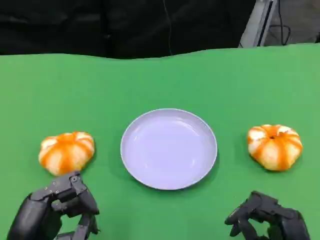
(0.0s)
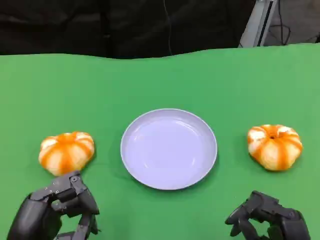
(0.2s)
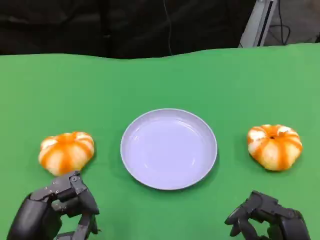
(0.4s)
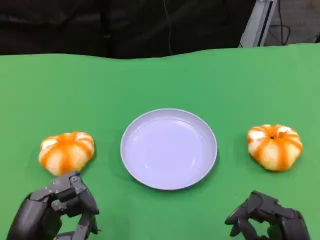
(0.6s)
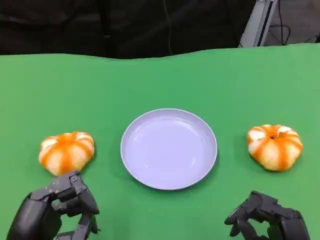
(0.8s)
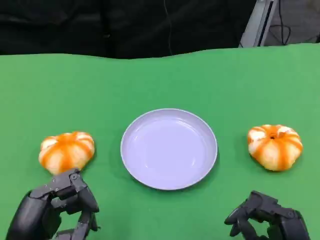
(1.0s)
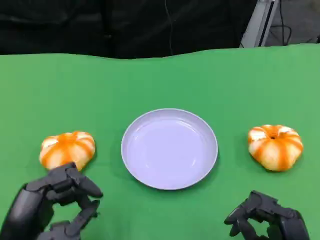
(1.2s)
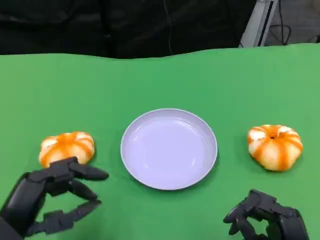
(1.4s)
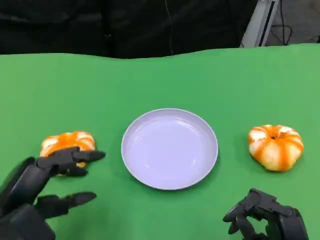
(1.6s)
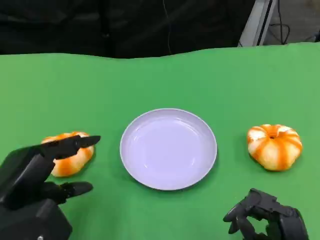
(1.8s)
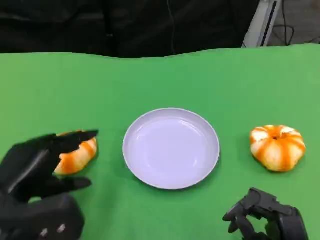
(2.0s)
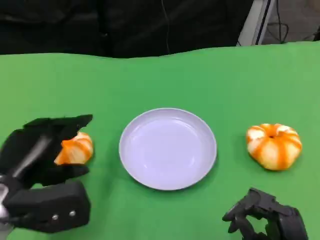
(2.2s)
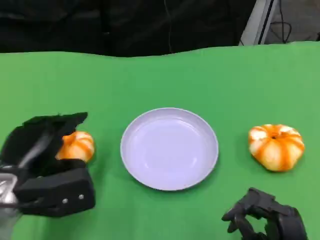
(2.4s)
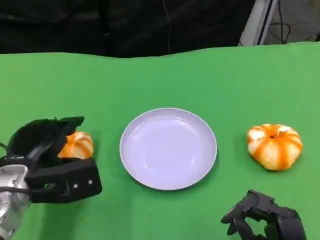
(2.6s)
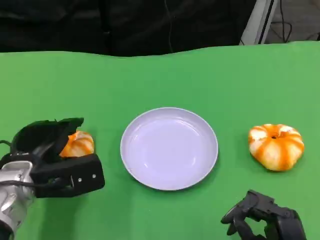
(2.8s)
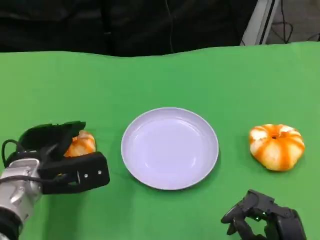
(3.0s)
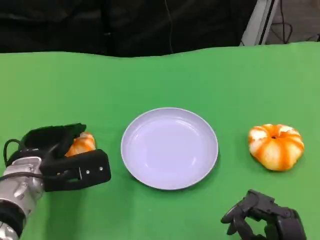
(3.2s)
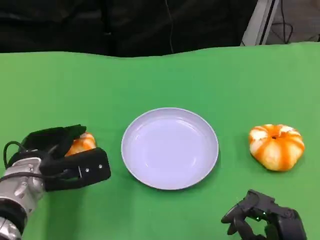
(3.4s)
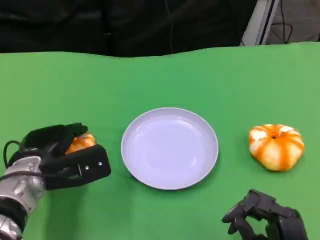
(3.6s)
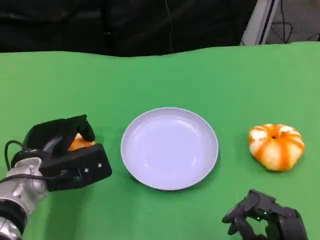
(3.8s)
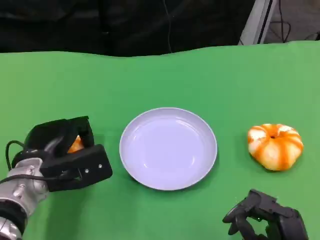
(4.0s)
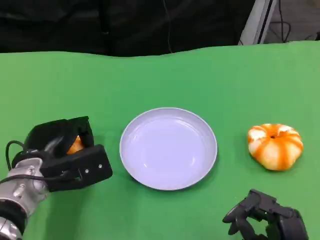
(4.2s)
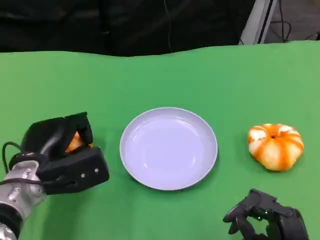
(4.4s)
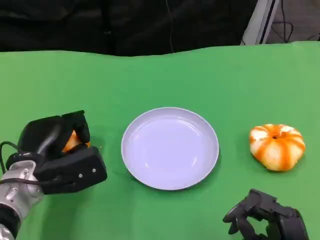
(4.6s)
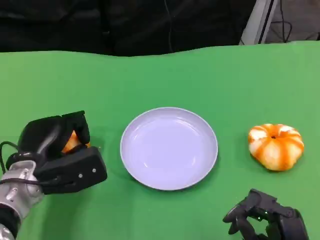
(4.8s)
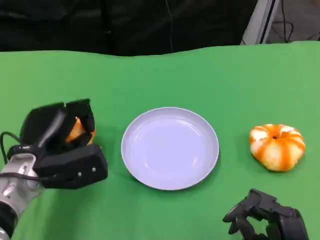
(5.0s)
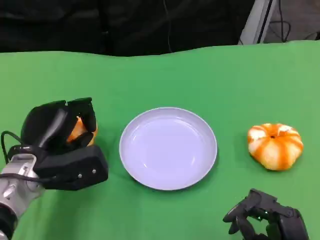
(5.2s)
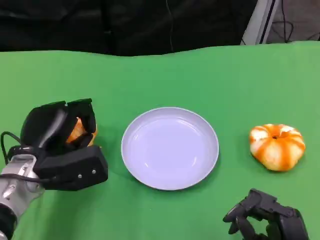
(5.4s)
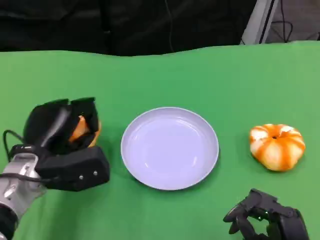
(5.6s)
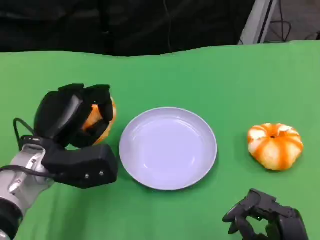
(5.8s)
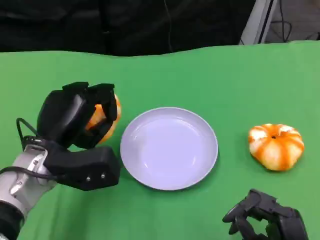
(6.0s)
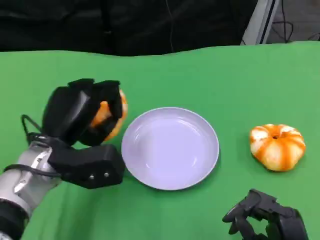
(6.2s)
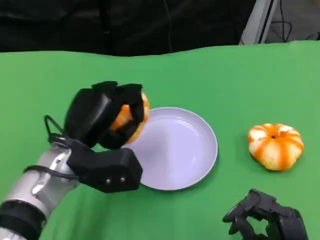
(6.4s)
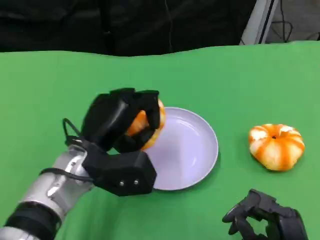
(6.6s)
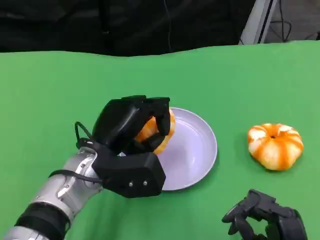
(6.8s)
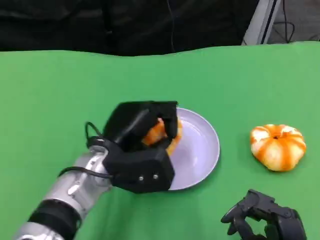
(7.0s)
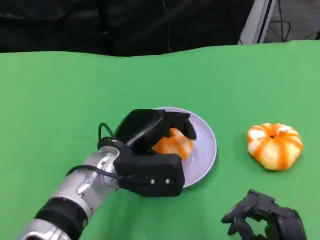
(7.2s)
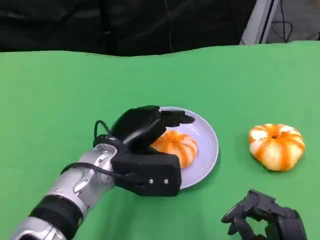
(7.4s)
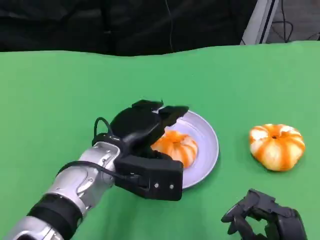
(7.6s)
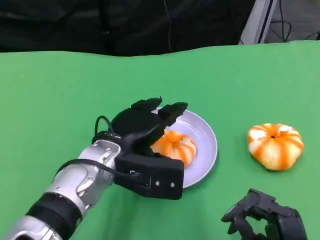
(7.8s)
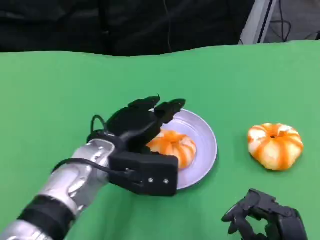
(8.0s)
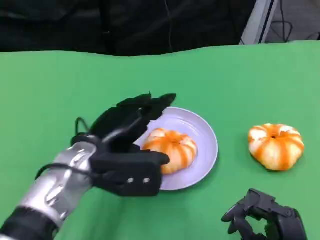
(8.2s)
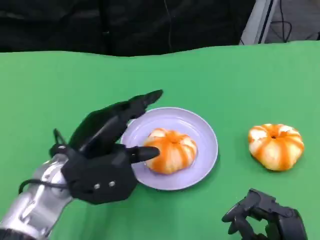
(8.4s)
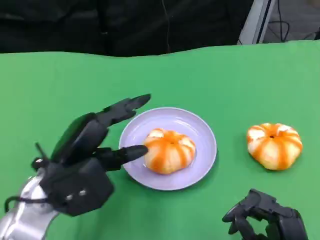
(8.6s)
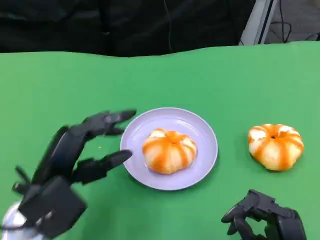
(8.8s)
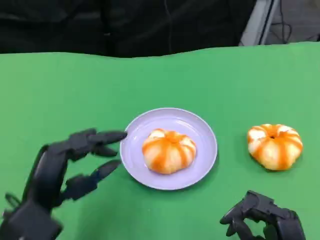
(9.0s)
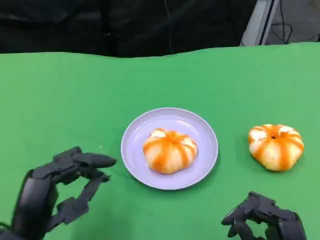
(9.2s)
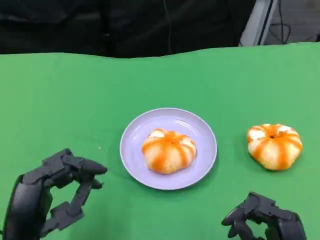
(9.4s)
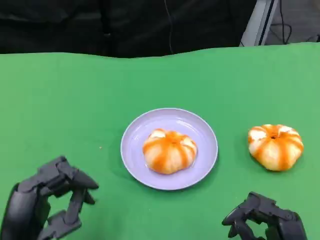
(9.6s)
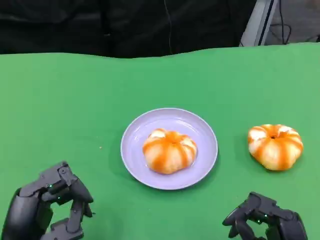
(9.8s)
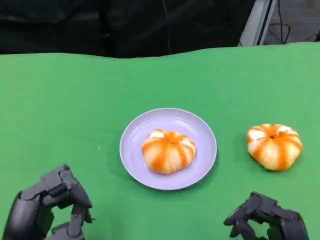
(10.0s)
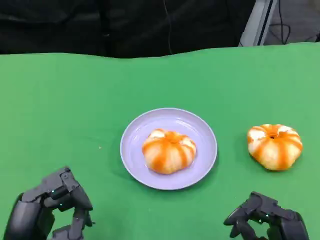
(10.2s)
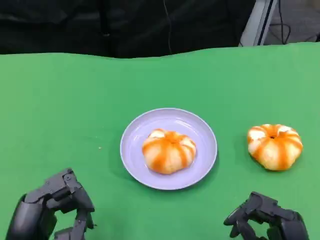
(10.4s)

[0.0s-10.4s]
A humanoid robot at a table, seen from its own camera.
Task of the whole recording: Grasp the bread from the table and place it into the plate.
0.0s to 1.4s: The hands move only a little.
1.4s to 3.0s: The left hand is displaced forward by approximately 15 cm.
3.0s to 4.4s: The hands stay close to where they were, moving slightly.
6.0s to 7.4s: The left hand travels to the right by approximately 10 cm.
7.4s to 9.0s: The left hand heads backward and to the left, covering about 15 cm.
9.0s to 10.4s: The left hand shifts by about 5 cm.

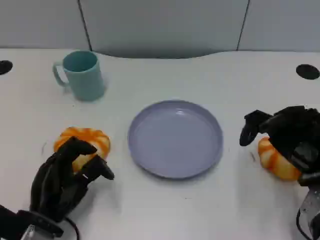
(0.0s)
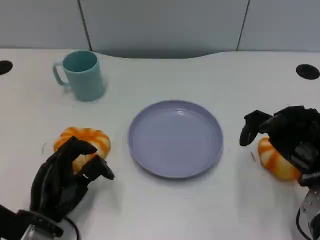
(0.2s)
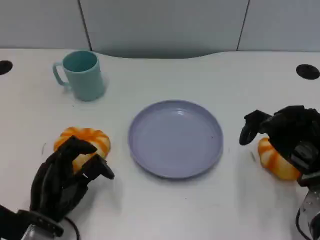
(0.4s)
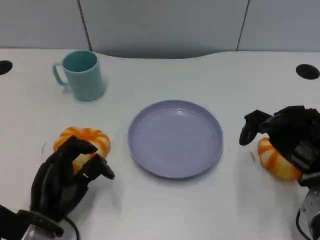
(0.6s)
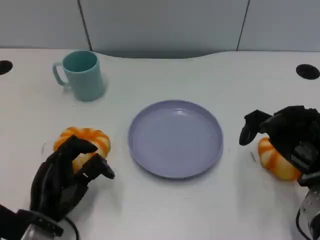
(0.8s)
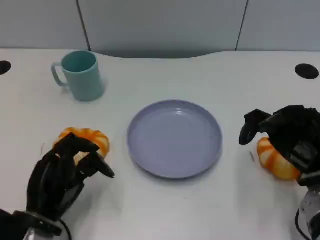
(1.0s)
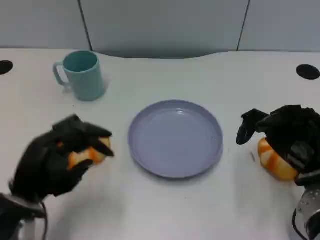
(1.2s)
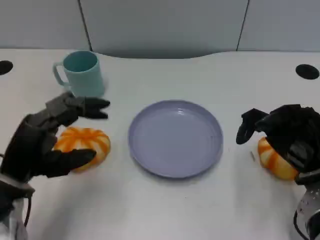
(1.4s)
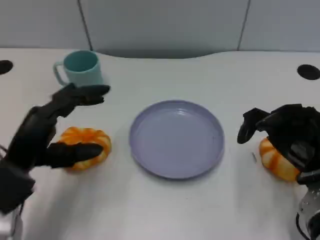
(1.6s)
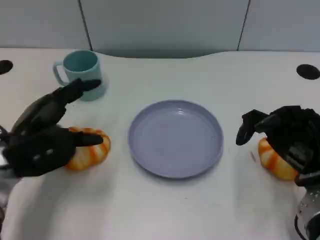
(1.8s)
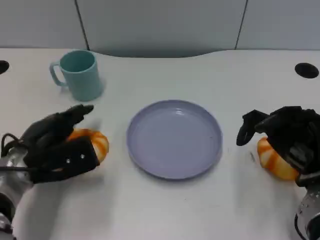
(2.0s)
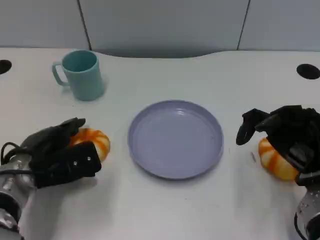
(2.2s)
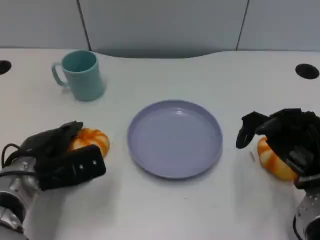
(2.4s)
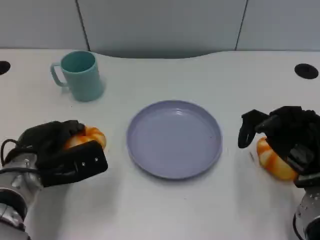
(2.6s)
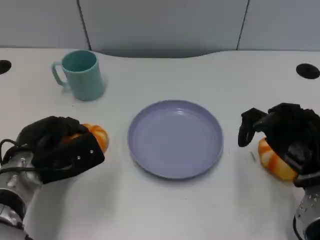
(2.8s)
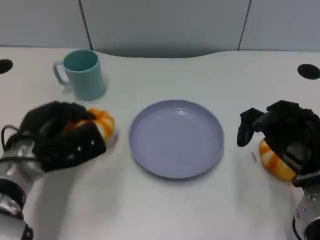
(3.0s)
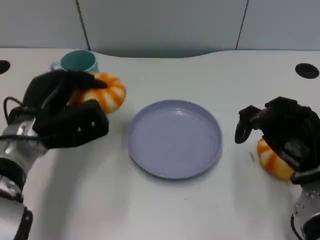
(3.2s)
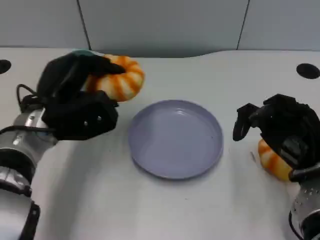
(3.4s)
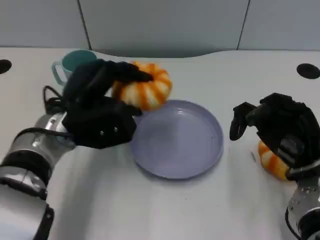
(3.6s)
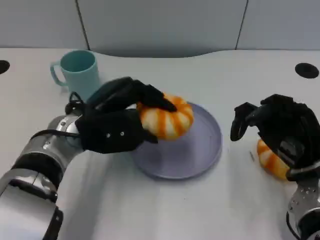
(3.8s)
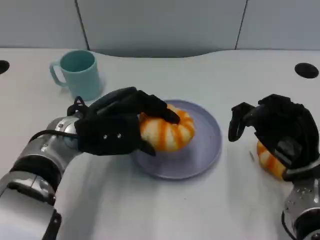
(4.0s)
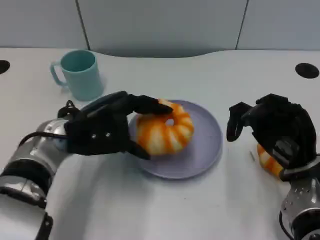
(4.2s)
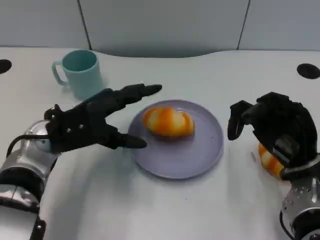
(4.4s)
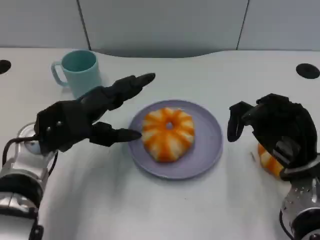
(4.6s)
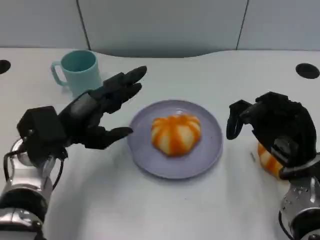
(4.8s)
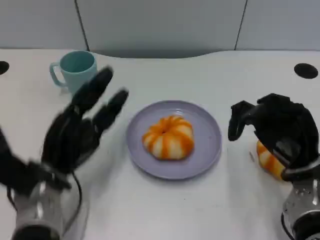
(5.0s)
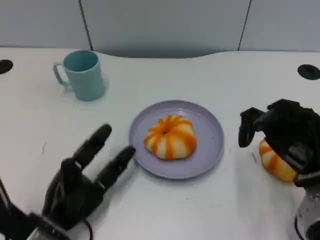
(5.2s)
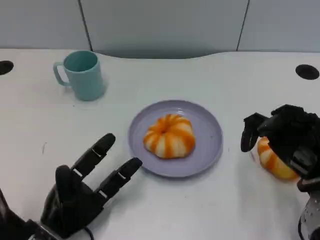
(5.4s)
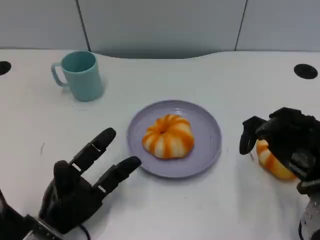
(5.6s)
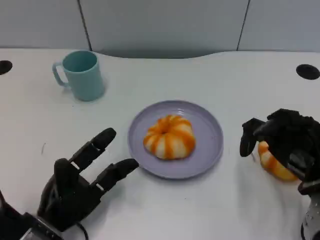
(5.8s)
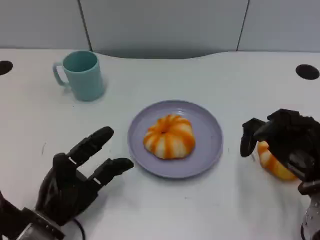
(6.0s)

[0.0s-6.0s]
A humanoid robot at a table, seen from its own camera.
Task of the whole recording: Grasp the bread from the table and place it into the plate.
0.0s to 1.6s: The left hand moves upward, roughly 10 cm.
1.6s to 3.0s: The left hand shifts some 5 cm forward.
4.4s to 6.0s: The left hand travels downward and backward by about 15 cm.

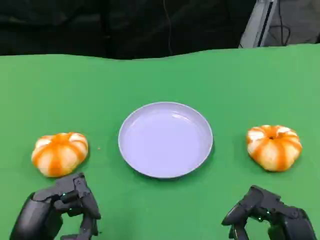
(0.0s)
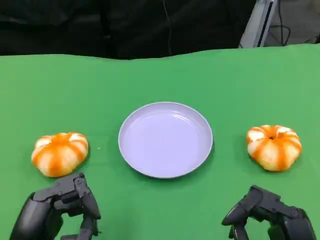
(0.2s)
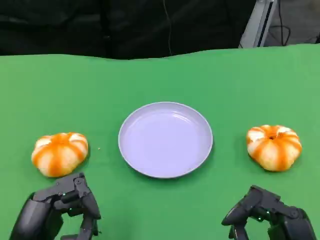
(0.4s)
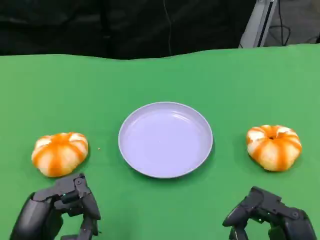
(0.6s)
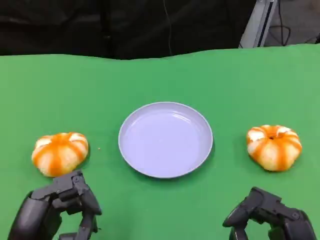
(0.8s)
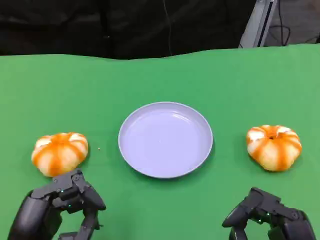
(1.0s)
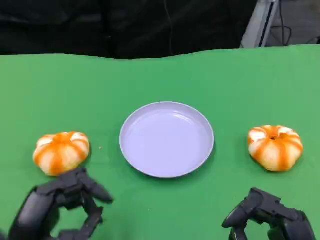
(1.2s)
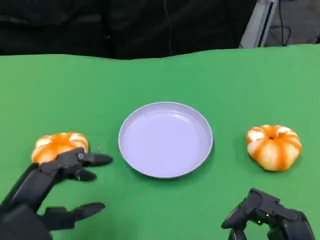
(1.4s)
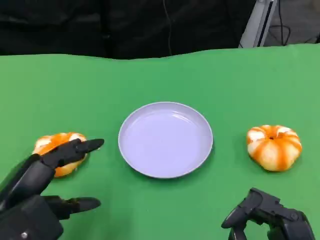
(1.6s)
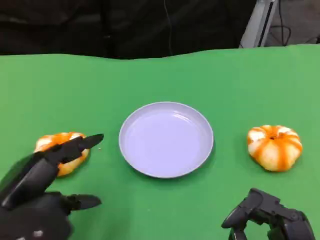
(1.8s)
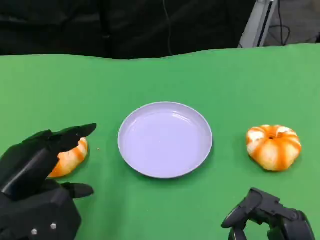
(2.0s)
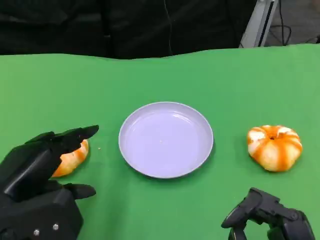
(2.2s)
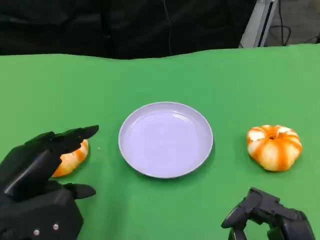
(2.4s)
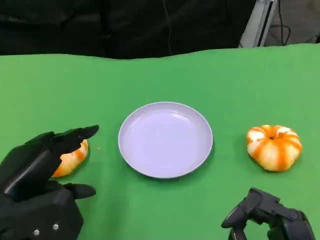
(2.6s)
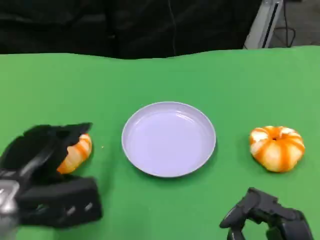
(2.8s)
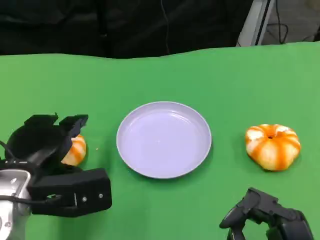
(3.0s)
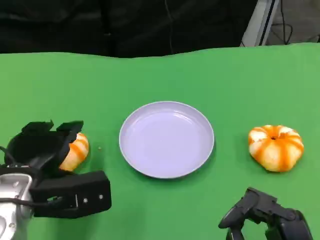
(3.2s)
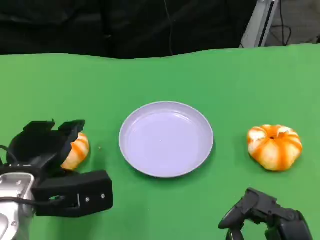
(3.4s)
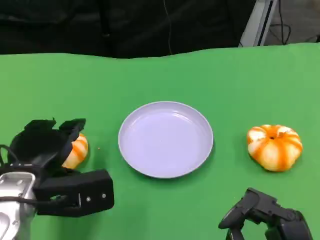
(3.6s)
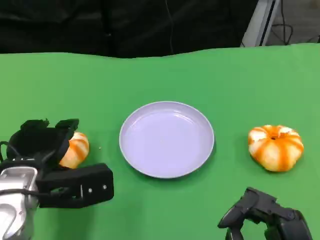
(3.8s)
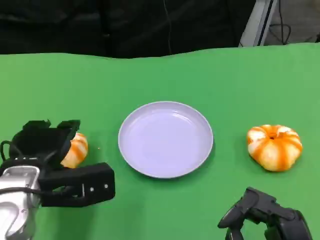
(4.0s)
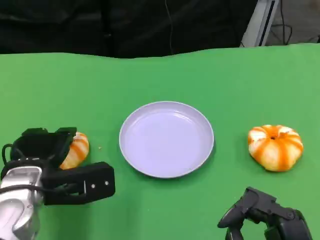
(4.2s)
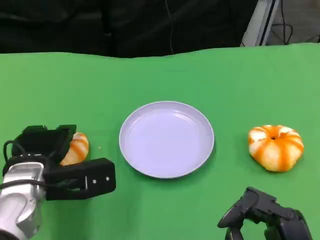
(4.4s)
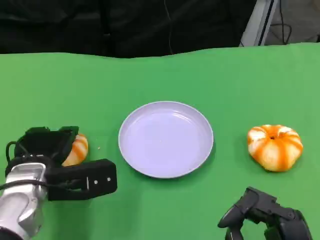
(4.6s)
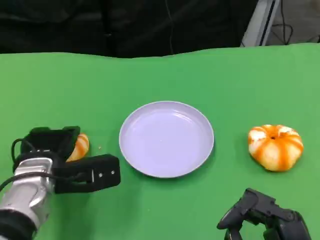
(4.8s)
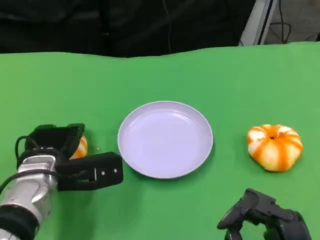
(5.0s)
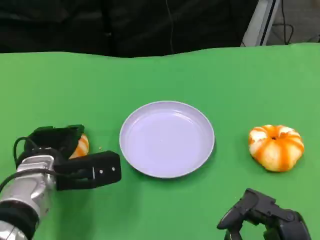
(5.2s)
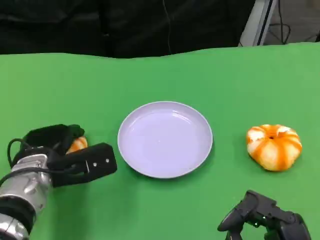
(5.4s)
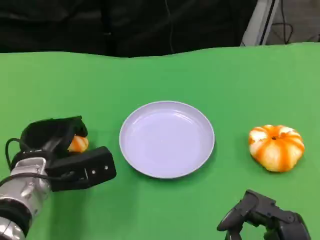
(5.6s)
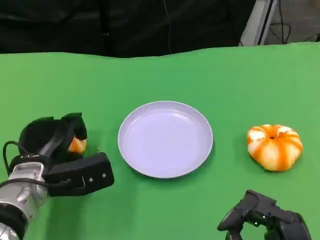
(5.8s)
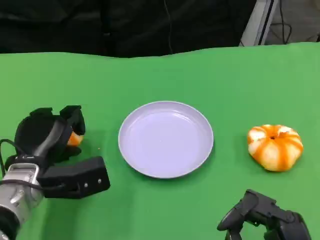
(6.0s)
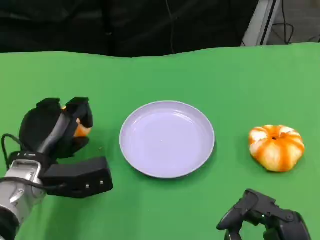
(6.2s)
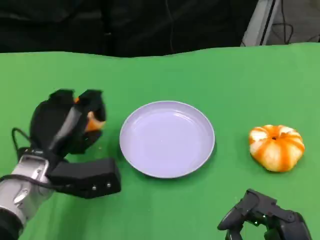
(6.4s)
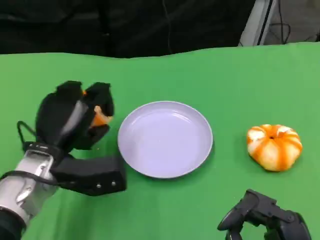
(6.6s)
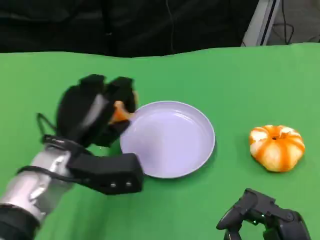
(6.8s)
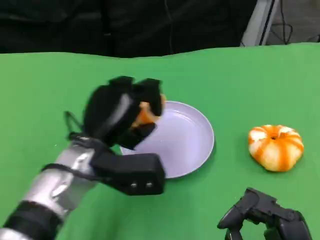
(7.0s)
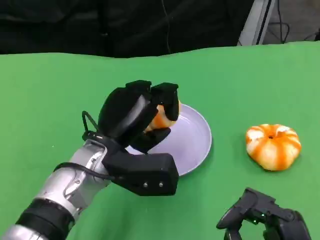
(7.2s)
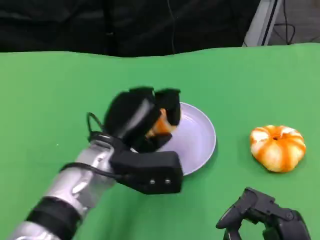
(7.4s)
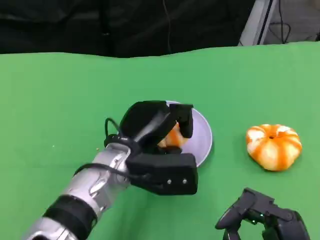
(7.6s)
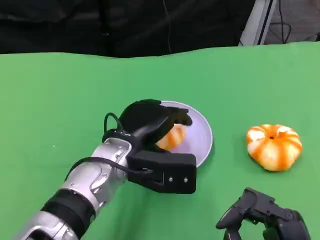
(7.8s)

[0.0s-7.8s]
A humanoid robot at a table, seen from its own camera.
Task of the whole recording: Grasp the bread from the table and place it into the plate.
0.0s to 1.6s: The left hand moves about 5 cm.
1.6s to 3.2s: The left hand goes about 5 cm forward.
3.2s to 4.6s: There are only small adjustments of the hands.
6.2s to 7.8s: The left hand travels to the right by about 10 cm.
